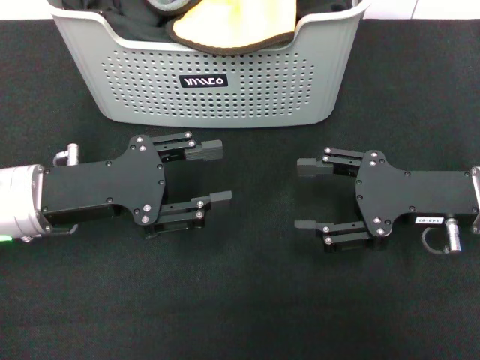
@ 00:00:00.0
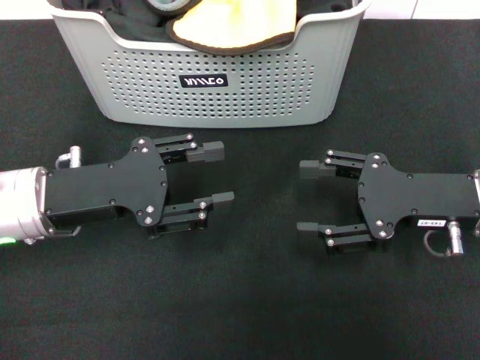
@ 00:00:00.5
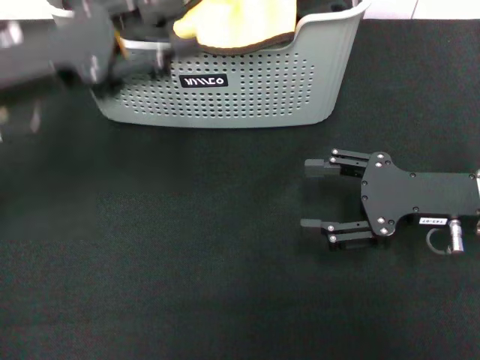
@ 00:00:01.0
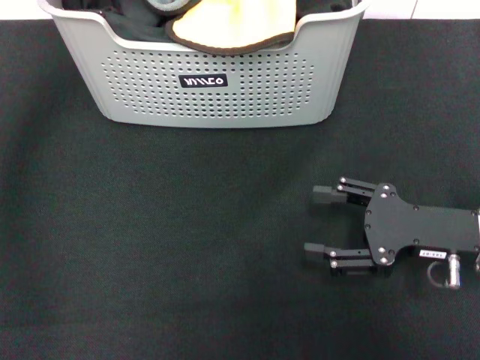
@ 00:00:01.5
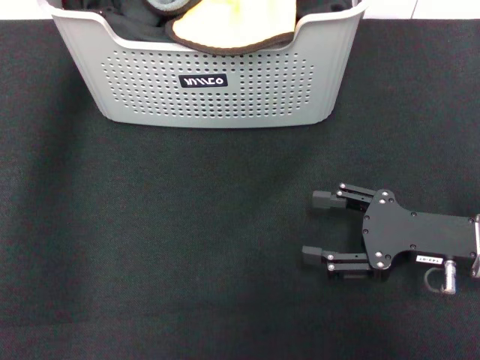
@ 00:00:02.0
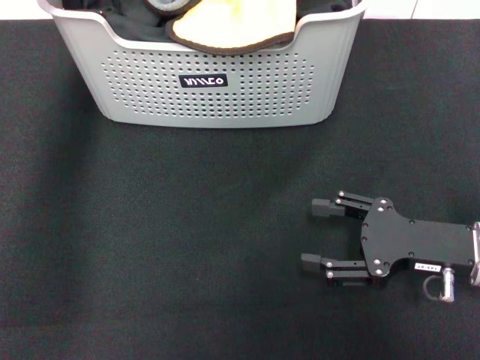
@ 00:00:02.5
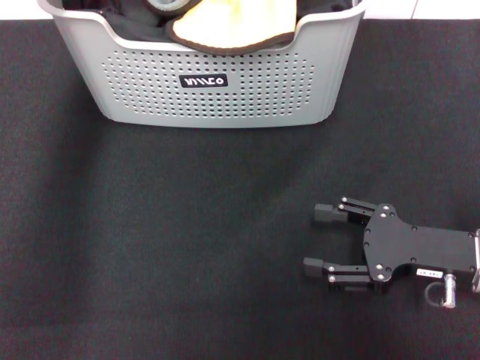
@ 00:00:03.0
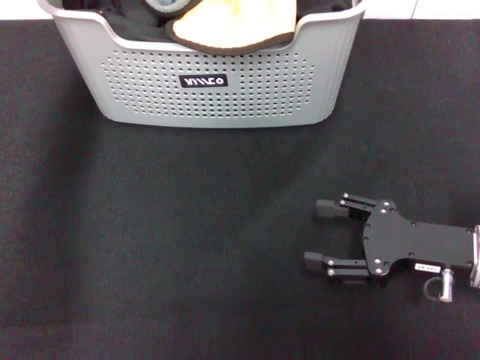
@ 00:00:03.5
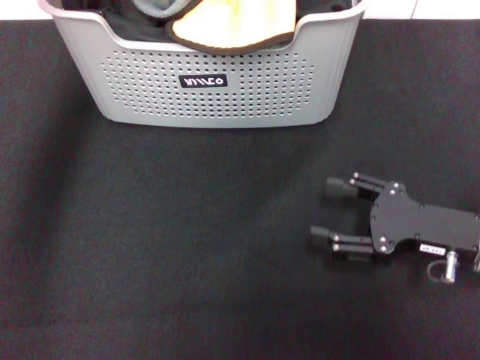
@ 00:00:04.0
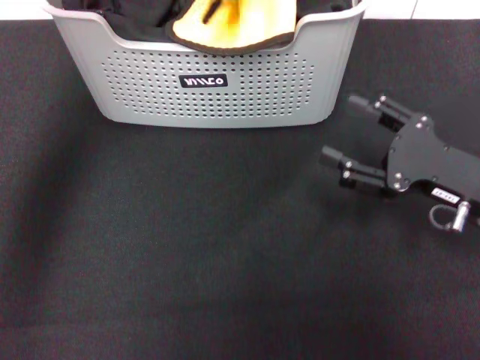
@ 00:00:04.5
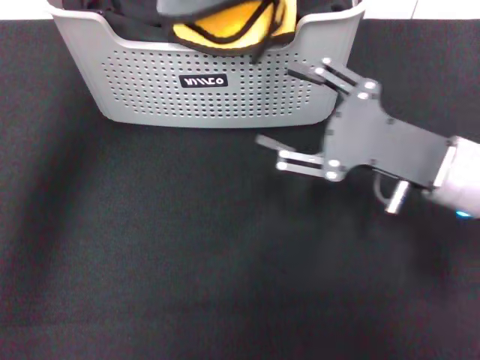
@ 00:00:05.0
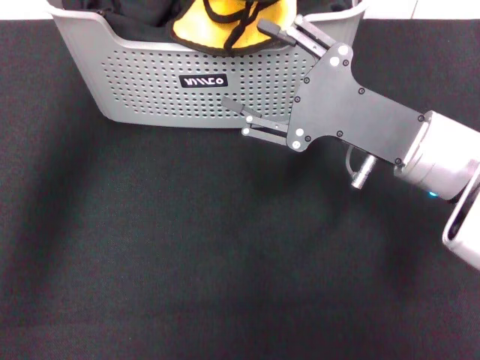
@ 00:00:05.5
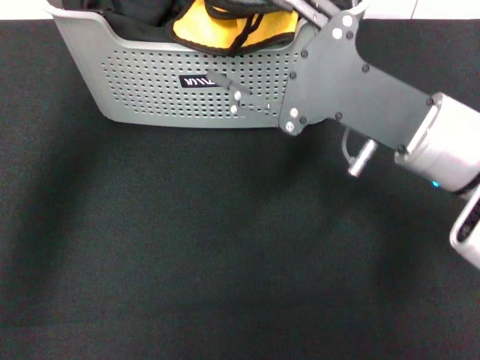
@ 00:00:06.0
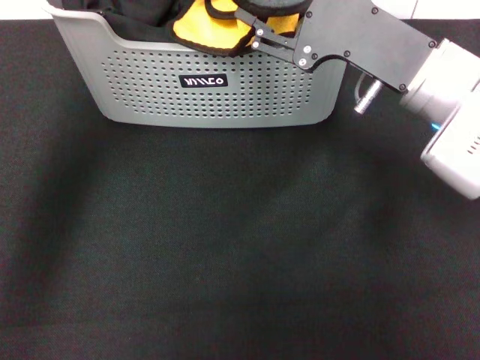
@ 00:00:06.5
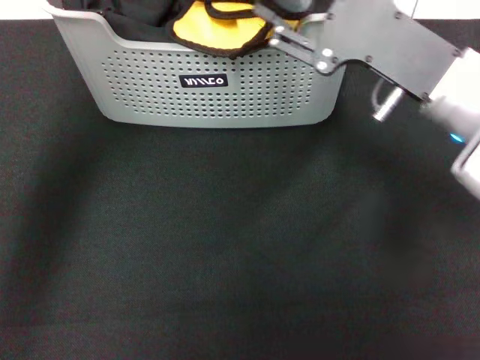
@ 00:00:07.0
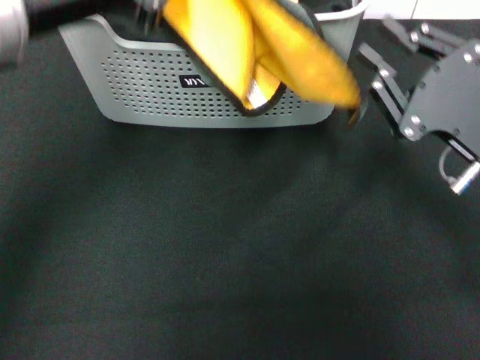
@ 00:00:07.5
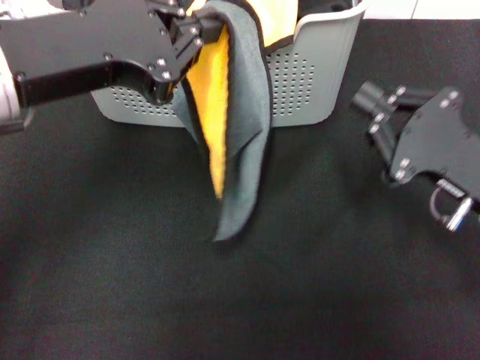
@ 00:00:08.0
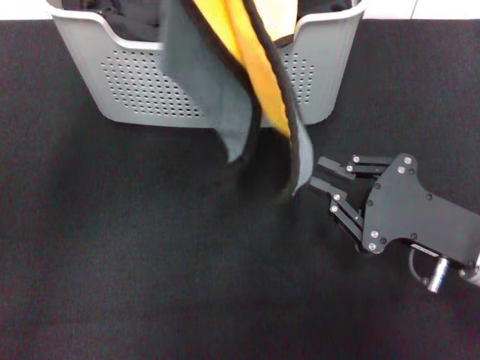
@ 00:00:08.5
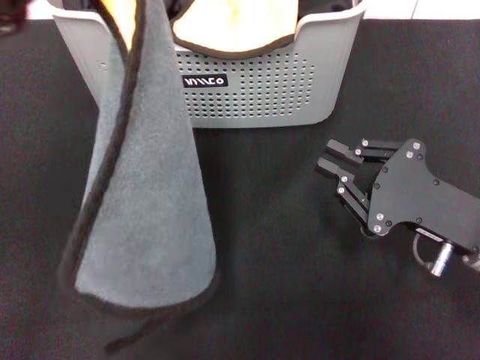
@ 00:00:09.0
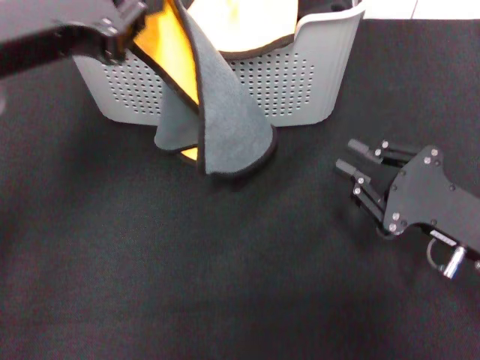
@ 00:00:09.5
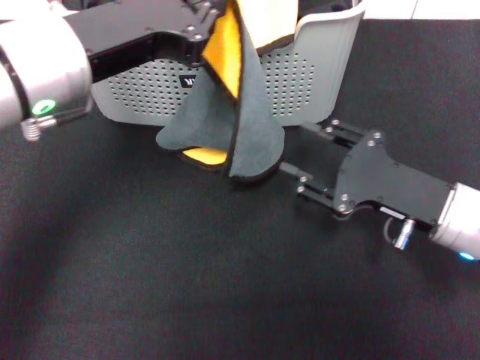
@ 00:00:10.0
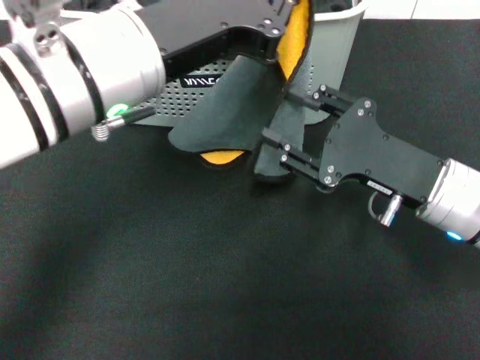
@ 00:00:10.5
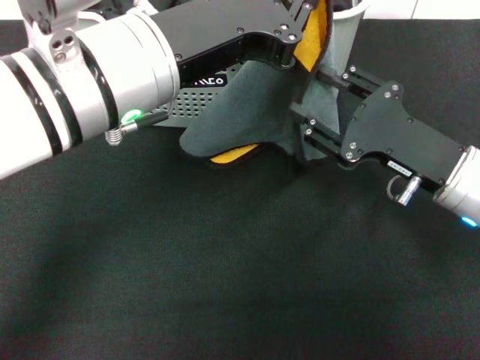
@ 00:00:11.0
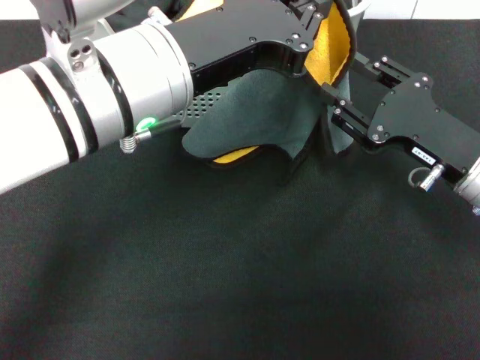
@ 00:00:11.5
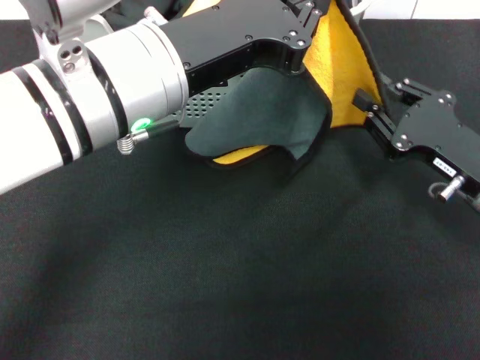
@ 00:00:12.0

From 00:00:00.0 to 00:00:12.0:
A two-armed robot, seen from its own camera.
Task of the whole recording: pick up the towel from the storage box and lay it flat on the black tablecloth.
Step, from 00:00:00.0 to 00:00:03.0: Pick up a towel with the left gripper.
From 00:00:00.0 to 00:00:02.0: The left gripper heads upward and forward, covering approximately 25 cm; the right gripper moves approximately 5 cm.
From 00:00:02.0 to 00:00:04.0: The left gripper closes its fingers.
From 00:00:04.0 to 00:00:06.0: The right gripper shifts about 15 cm upward and to the left. The left gripper moves backward, upward and to the right, roughly 10 cm.
From 00:00:06.0 to 00:00:08.0: The right gripper goes roughly 10 cm to the right and downward, and closes up. Meanwhile the left gripper is displaced downward and backward by about 15 cm.
From 00:00:08.0 to 00:00:10.0: The right gripper opens its fingers. The left gripper changes place by roughly 5 cm.
From 00:00:10.0 to 00:00:12.0: The left gripper heads to the right, covering approximately 5 cm.

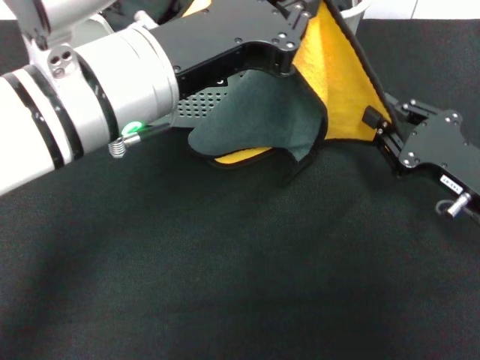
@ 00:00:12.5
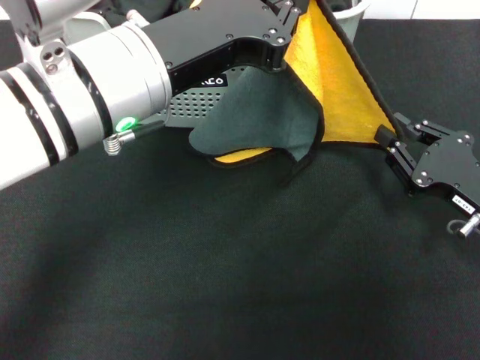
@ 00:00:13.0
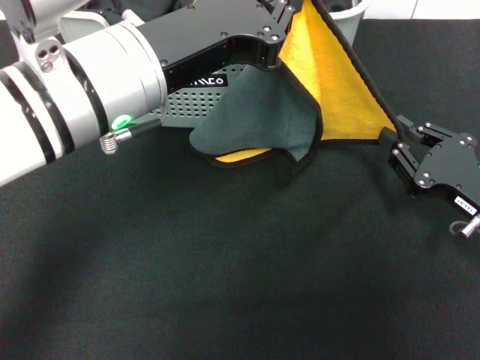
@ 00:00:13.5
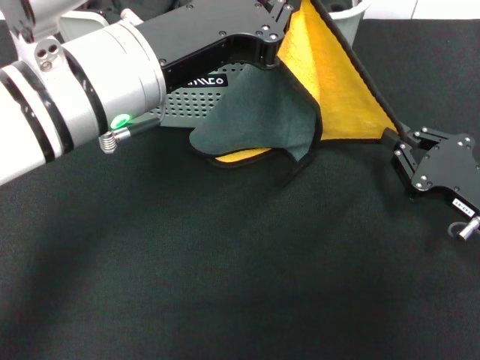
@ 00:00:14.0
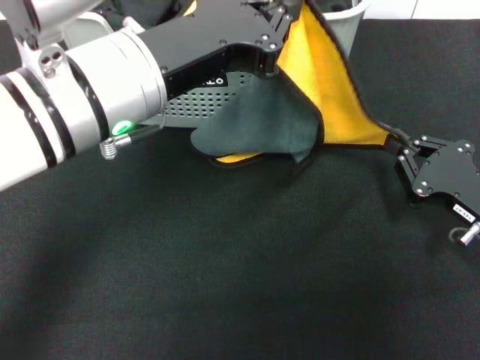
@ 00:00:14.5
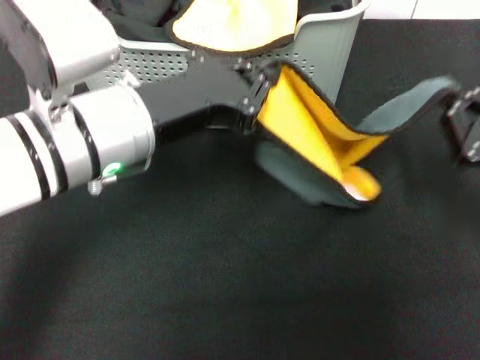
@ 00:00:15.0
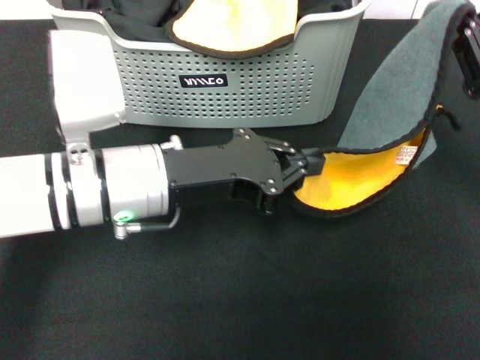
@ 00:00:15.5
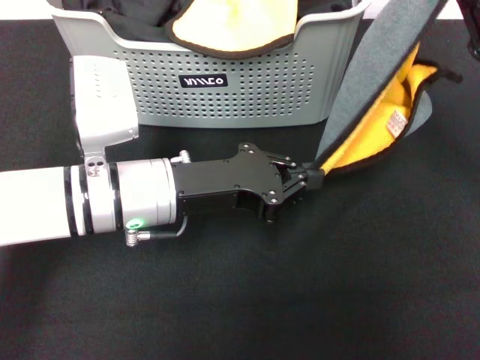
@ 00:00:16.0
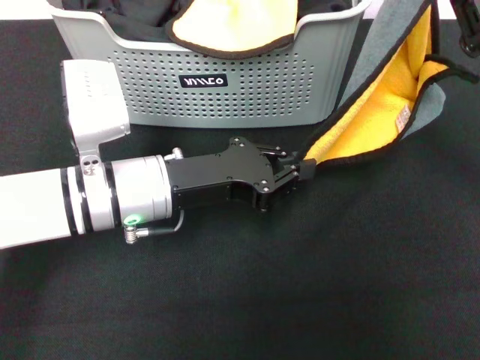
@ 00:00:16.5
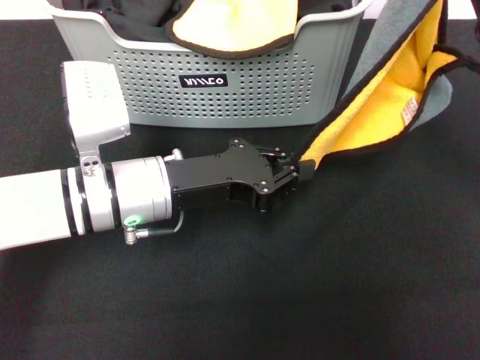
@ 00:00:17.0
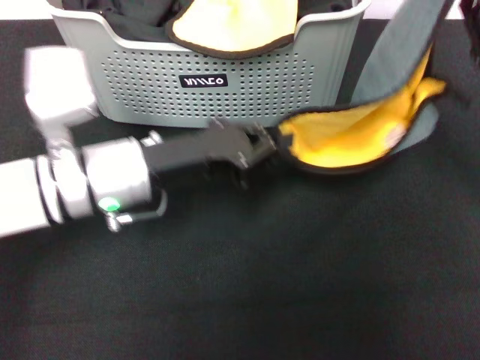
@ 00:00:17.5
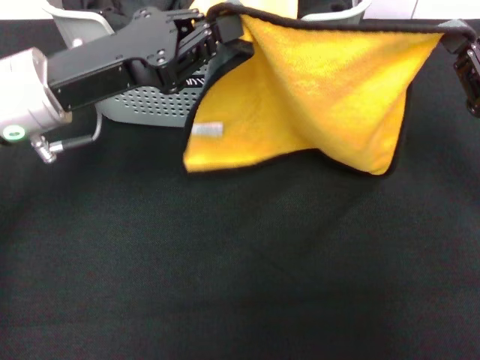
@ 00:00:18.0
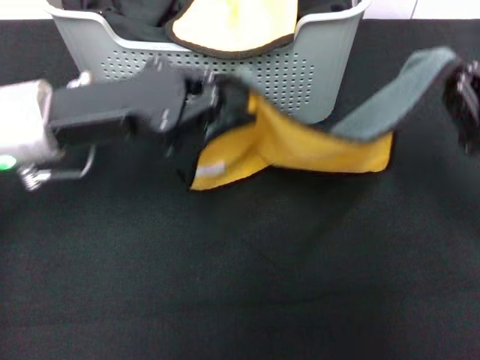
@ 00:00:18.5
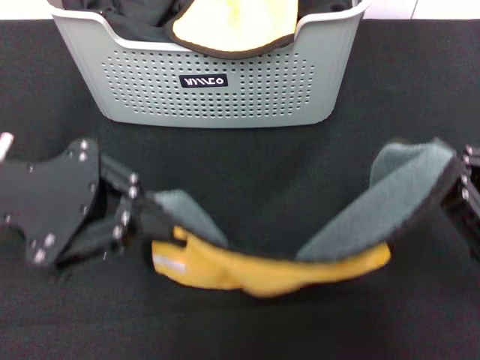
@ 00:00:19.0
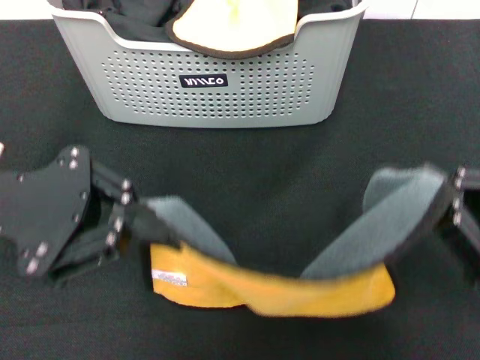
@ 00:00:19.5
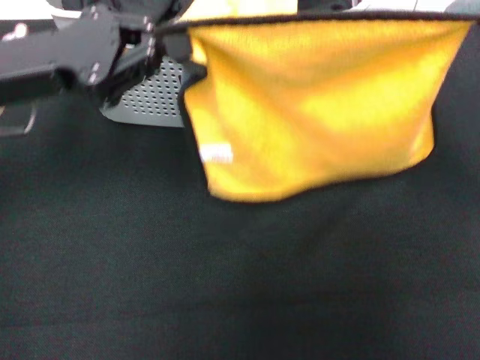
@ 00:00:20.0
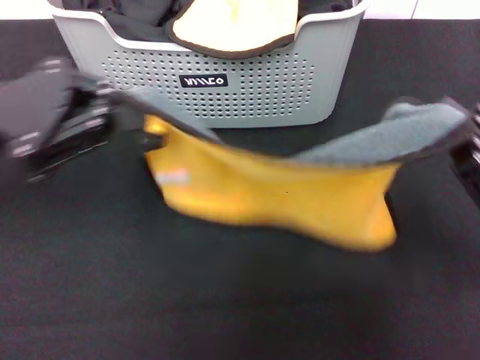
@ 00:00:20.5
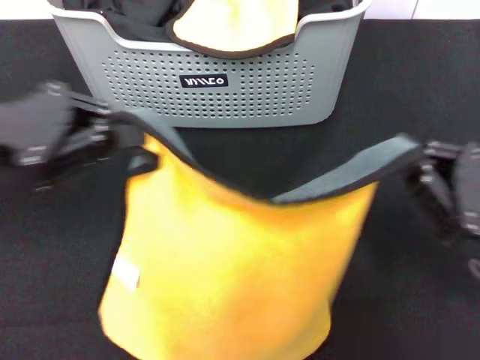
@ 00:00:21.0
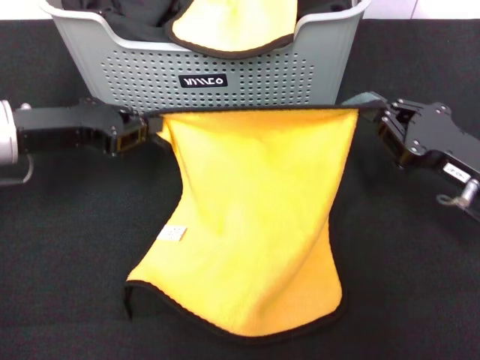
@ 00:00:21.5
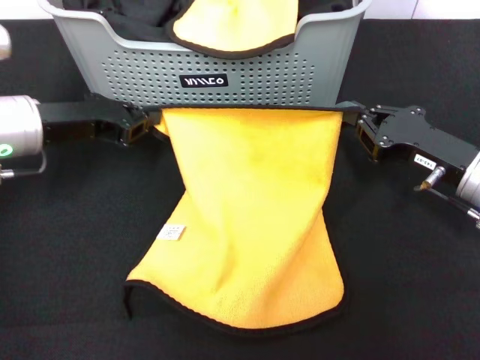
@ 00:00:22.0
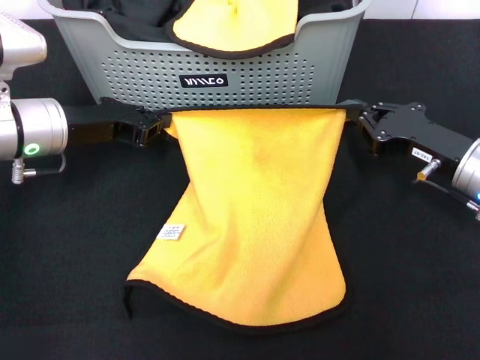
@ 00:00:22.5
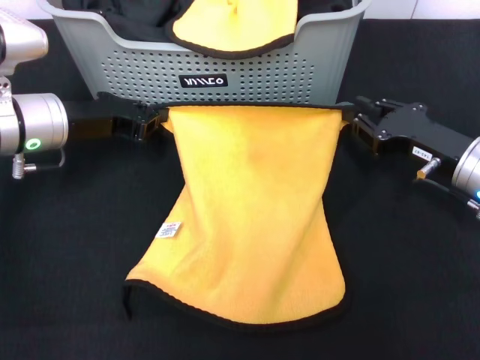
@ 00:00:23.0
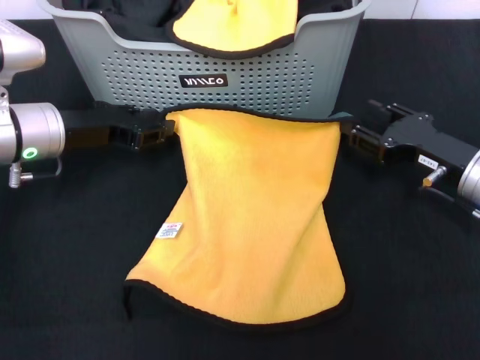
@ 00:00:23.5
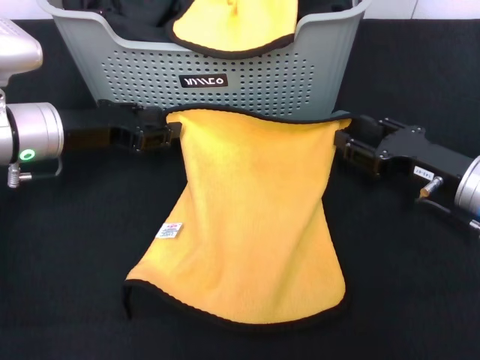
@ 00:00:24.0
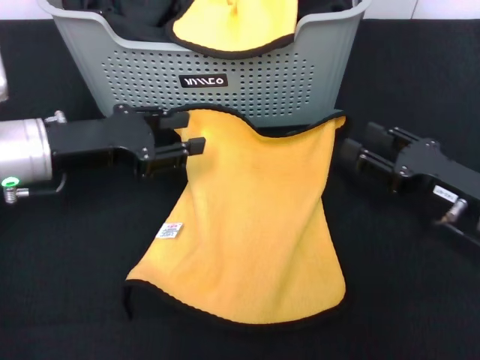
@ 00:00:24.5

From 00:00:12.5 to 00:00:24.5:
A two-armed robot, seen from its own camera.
Task of the whole recording: pick up the towel from the storage box and lay it flat on the black tablecloth.
Step, from 00:00:12.5 to 00:00:14.5: Spread the towel flat with the left gripper.
Step, from 00:00:15.0 to 00:00:24.0: Spread the towel flat with the right gripper.
From 00:00:12.5 to 00:00:14.5: The grippers stay close to where they were, moving slightly.
From 00:00:14.5 to 00:00:16.5: The right gripper goes roughly 10 cm upward. Meanwhile the left gripper moves downward, roughly 10 cm.
From 00:00:16.5 to 00:00:18.5: The right gripper shifts approximately 5 cm downward. Meanwhile the left gripper is displaced upward and to the left by about 10 cm.
From 00:00:18.5 to 00:00:20.5: The left gripper shifts roughly 5 cm to the left, and goes backward and returns, about 5 cm each way, while the right gripper moves forward and backward over about 10 cm, changing direction 2 times.
From 00:00:20.5 to 00:00:22.5: The right gripper heads forward and downward, covering some 15 cm. Meanwhile the left gripper moves downward and forward, some 15 cm.
From 00:00:22.5 to 00:00:24.5: The left gripper opens; the right gripper opens up.

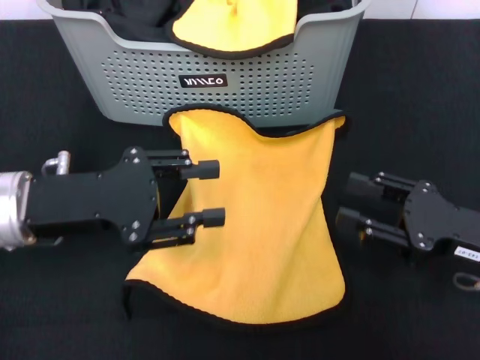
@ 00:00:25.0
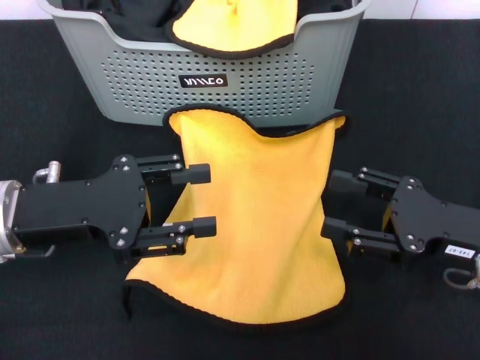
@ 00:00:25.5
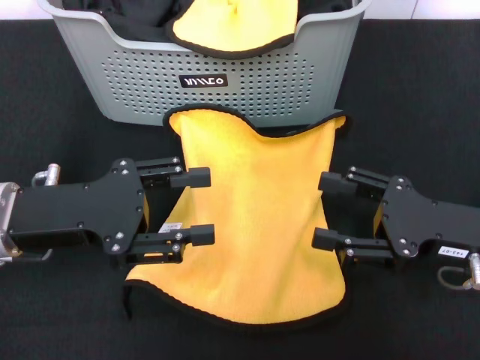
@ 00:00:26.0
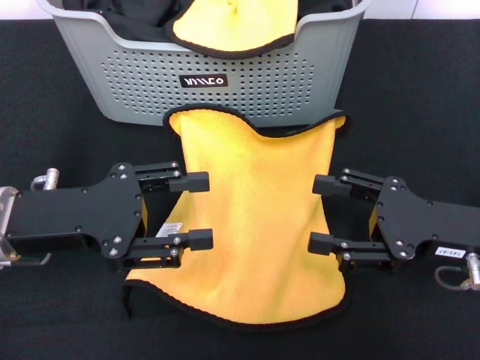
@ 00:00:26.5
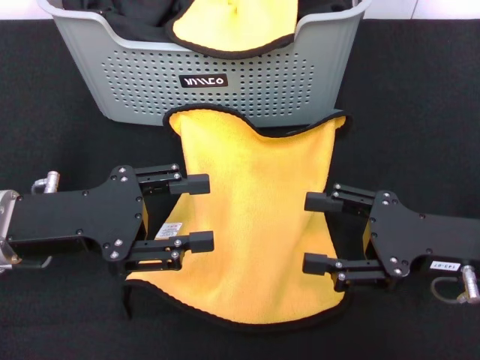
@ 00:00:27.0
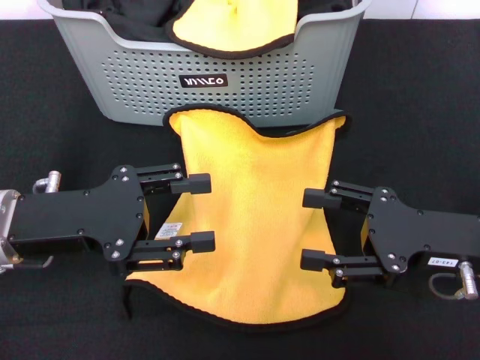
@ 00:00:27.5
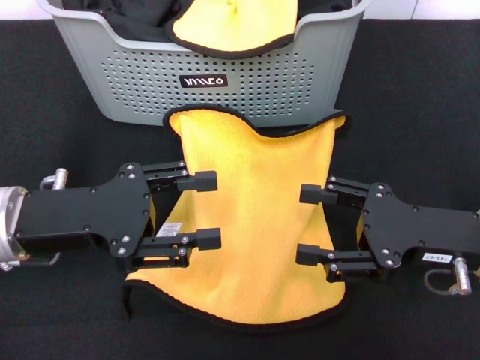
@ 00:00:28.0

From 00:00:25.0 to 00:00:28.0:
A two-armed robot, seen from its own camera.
Task of the whole recording: pick up the towel from the storage box and lay it flat on the black tablecloth.
From 00:00:25.0 to 00:00:26.5: The grippers stay close to where they were, moving slightly.
From 00:00:26.5 to 00:00:28.0: Neither gripper changes place.
